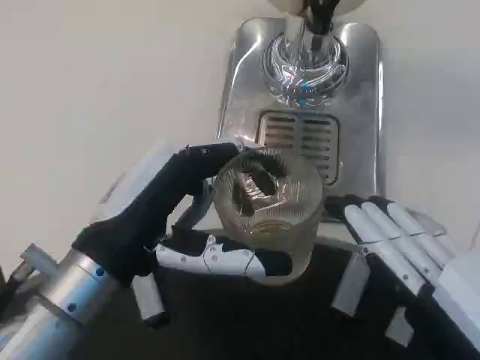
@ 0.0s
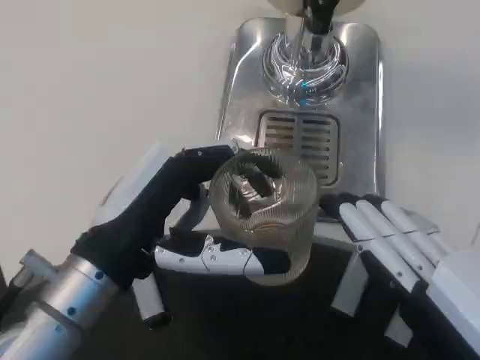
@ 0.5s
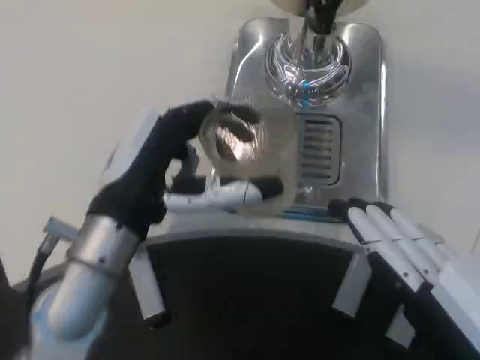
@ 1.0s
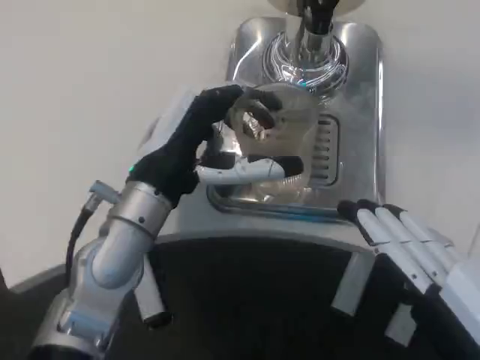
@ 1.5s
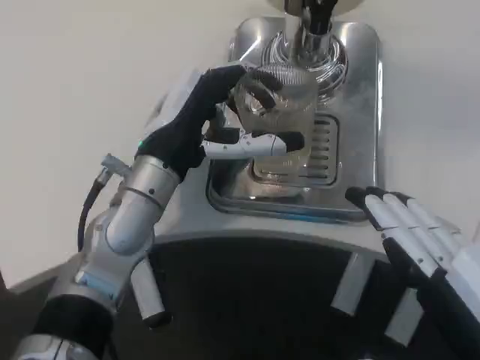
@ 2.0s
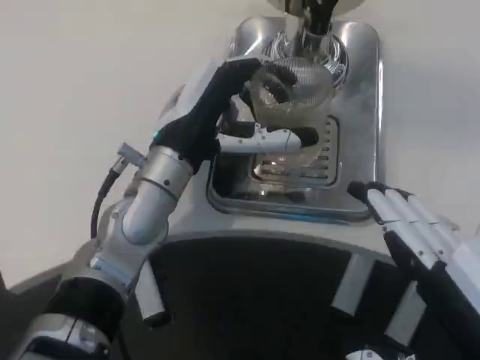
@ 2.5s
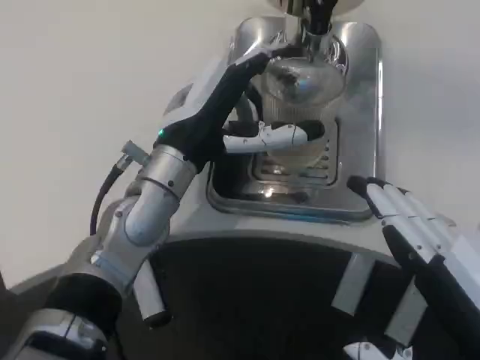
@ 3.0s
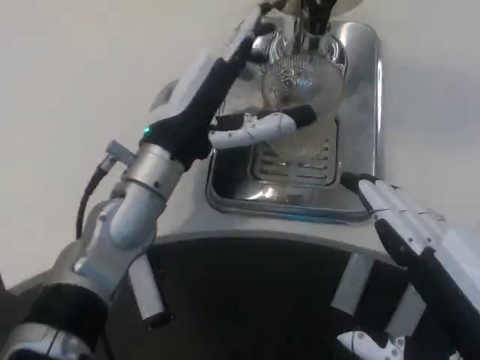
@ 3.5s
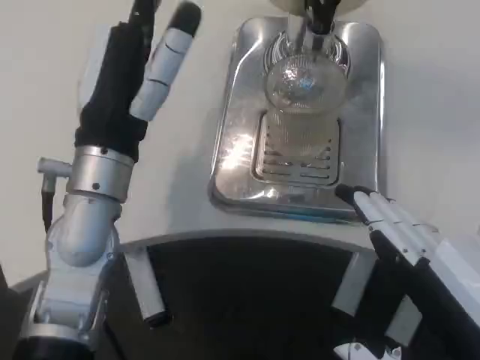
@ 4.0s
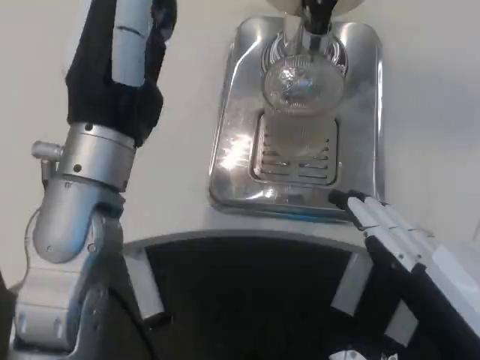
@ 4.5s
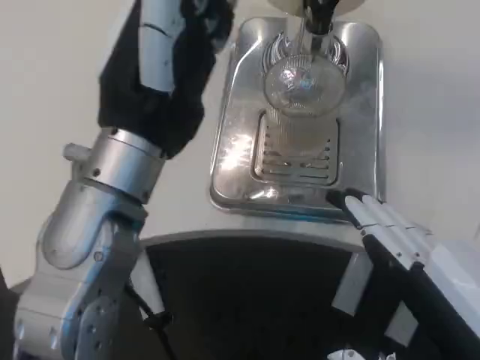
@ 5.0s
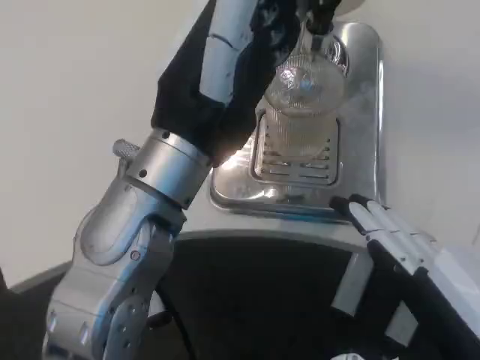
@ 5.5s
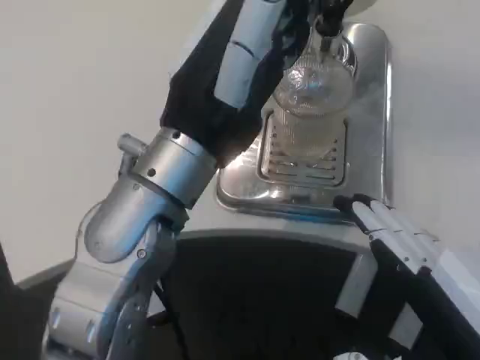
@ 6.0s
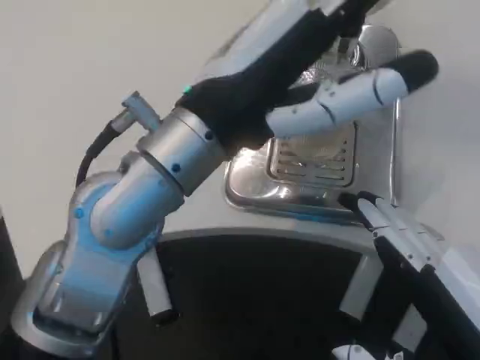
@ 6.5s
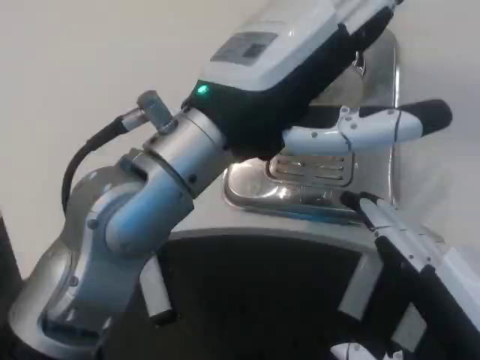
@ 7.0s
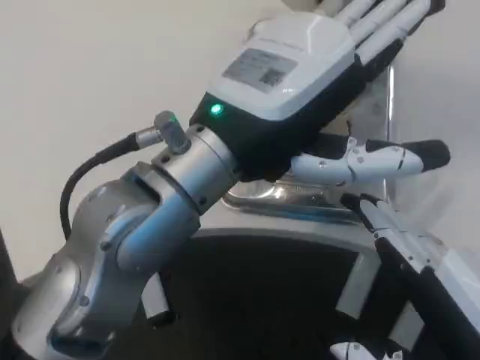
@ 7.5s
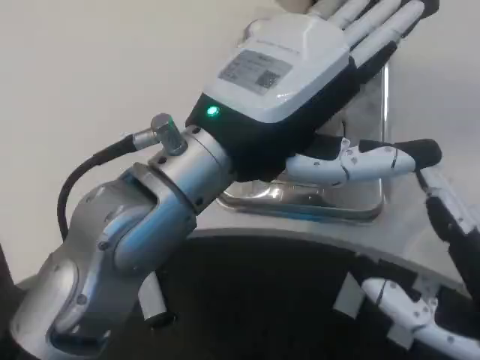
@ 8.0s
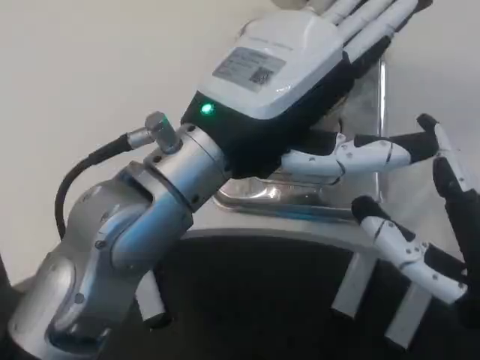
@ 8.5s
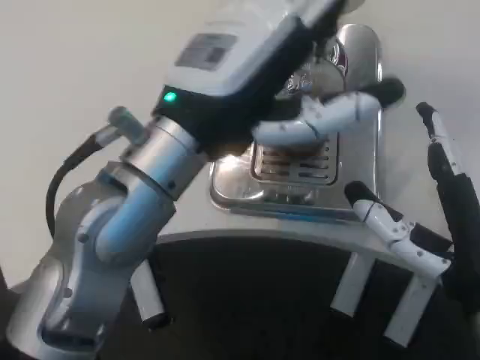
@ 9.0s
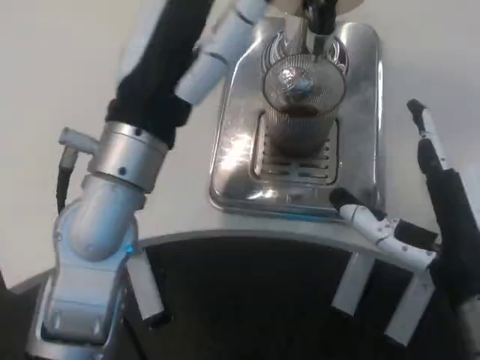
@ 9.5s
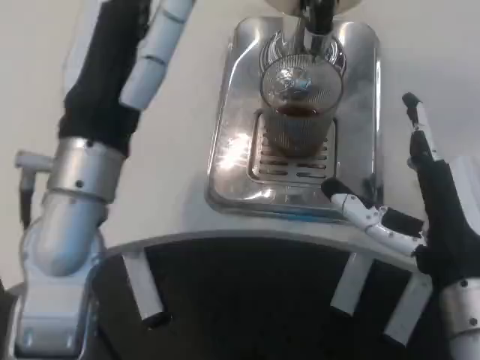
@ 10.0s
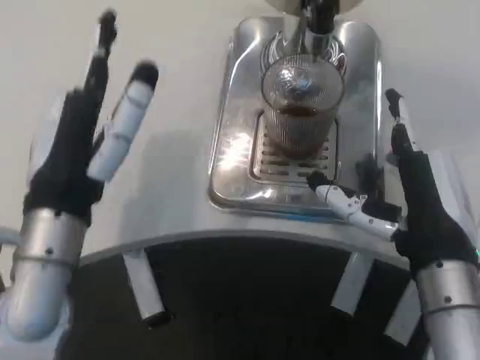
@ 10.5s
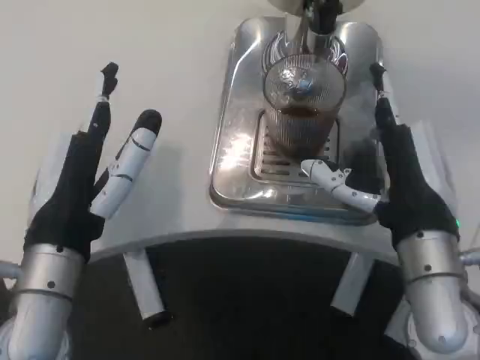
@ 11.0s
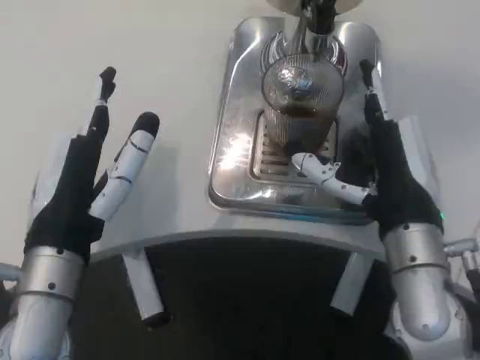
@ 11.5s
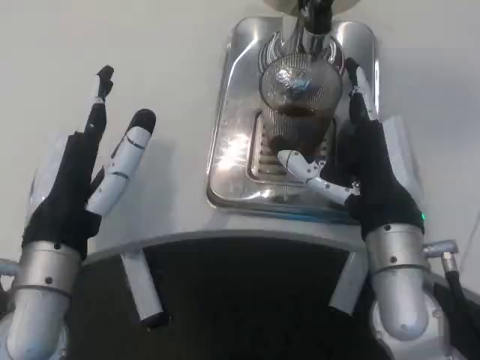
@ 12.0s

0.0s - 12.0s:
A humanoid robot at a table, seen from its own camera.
Task of the whole recording: Grasp the cup under the faucet to collect the drink, then remove the cup.
0.0s - 2.0s: The left hand heads forward, covering roughly 10 cm.
2.0s - 4.0s: The left hand shifts by approximately 5 cm.
4.0s - 6.0s: The left hand goes about 10 cm to the right and upward.
8.0s - 10.0s: The right hand heads forward, covering approximately 10 cm, while the left hand shifts approximately 5 cm to the left.
10.0s - 12.0s: The right hand moves forward, some 5 cm. Meanwhile the left hand travels downward by roughly 5 cm.

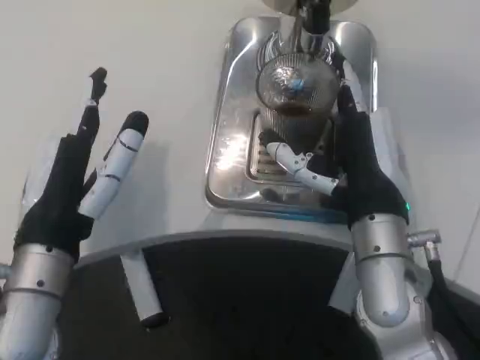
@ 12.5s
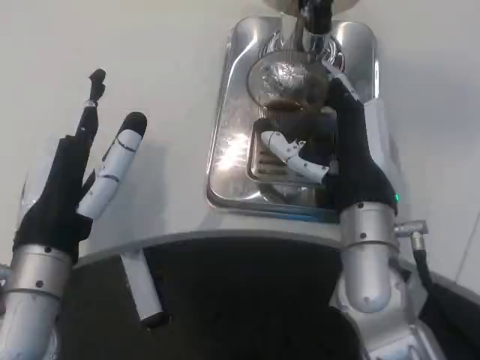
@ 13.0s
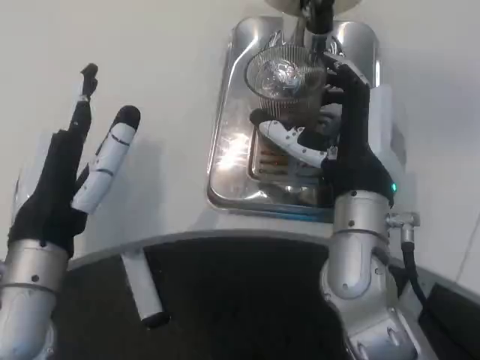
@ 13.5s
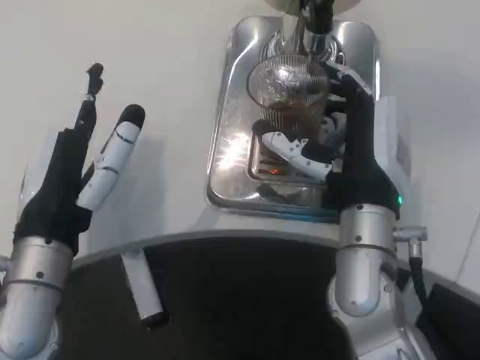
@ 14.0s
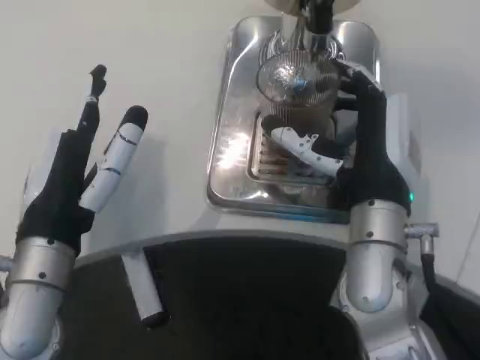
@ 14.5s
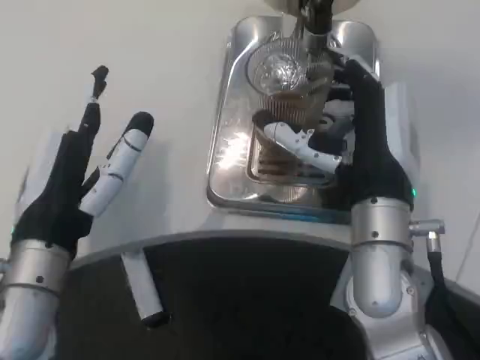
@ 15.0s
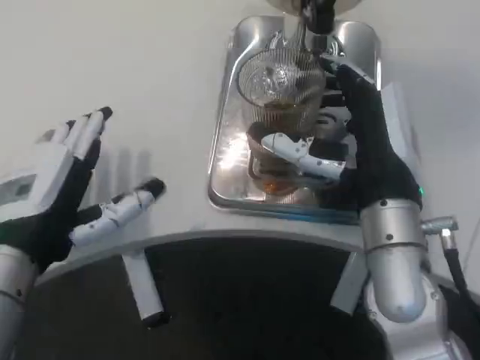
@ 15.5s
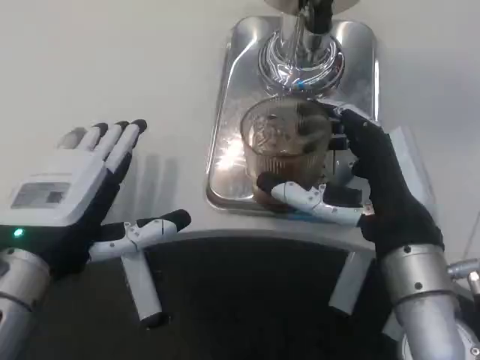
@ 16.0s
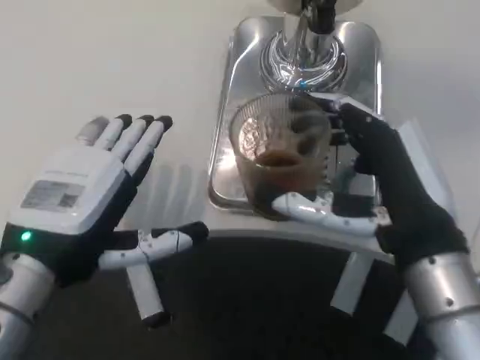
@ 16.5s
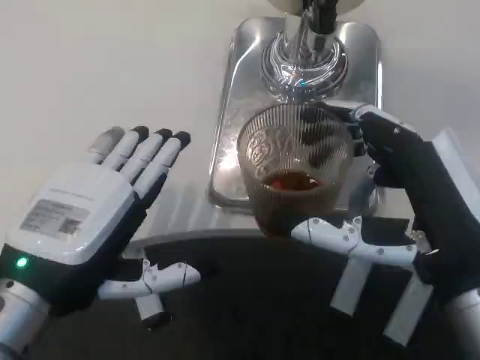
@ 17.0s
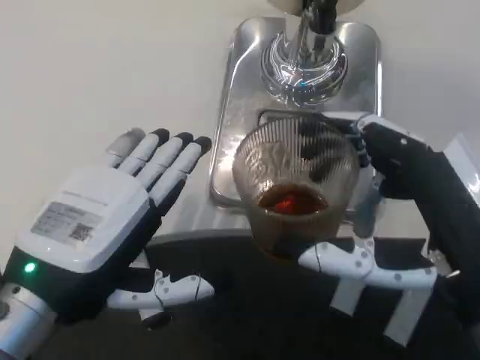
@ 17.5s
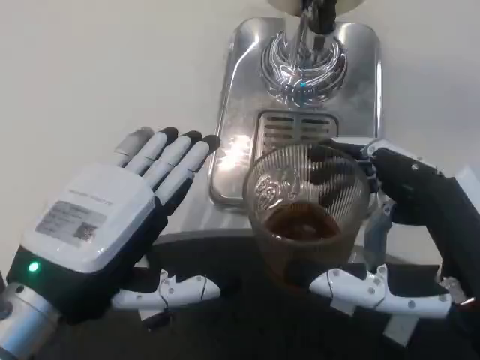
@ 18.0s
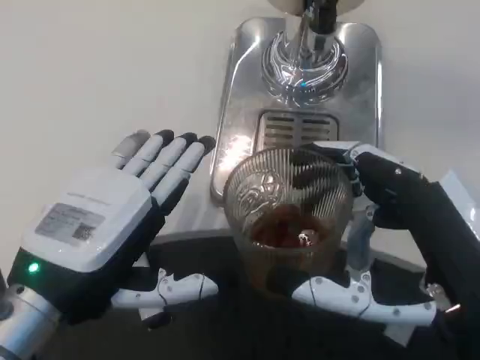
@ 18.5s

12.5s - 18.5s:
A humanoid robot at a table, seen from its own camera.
Task of the whole recording: Grasp the cup under the faucet to collect the drink, then remove the cup.
12.5s - 14.5s: The hands make only small movements.
14.5s - 16.5s: The right hand heads backward and to the right, covering some 10 cm.
16.5s - 18.5s: The right hand moves backward, about 5 cm.

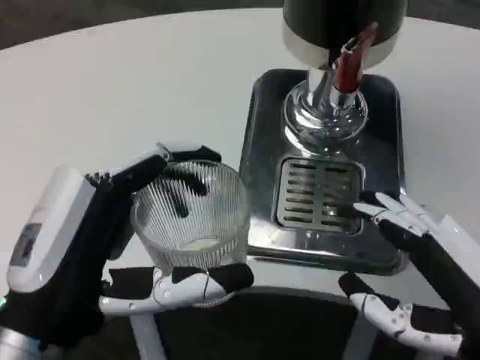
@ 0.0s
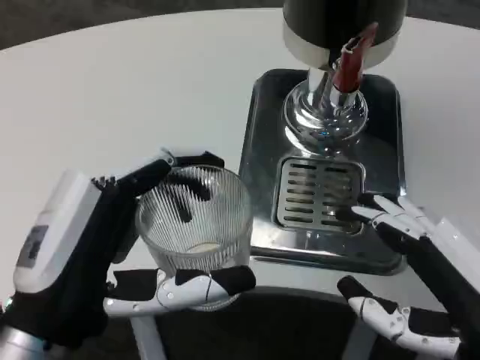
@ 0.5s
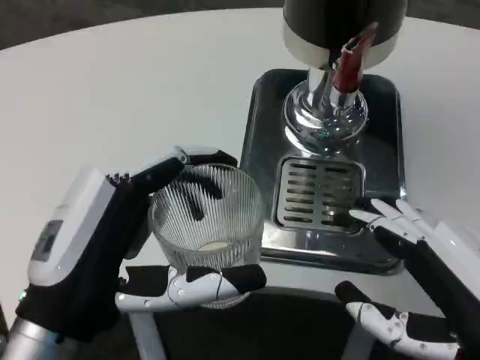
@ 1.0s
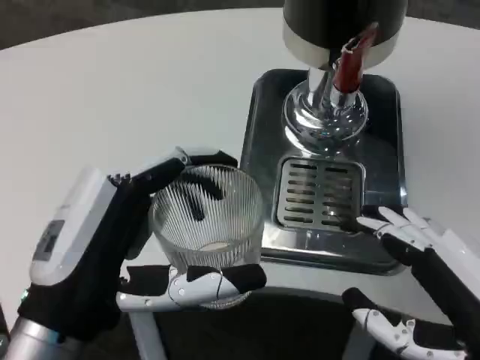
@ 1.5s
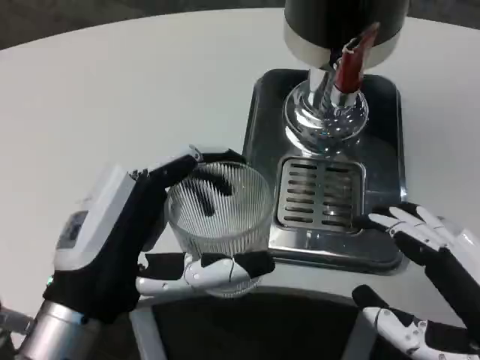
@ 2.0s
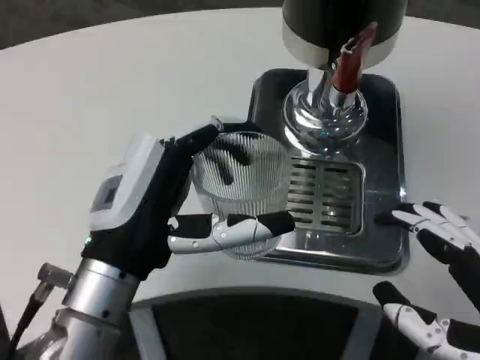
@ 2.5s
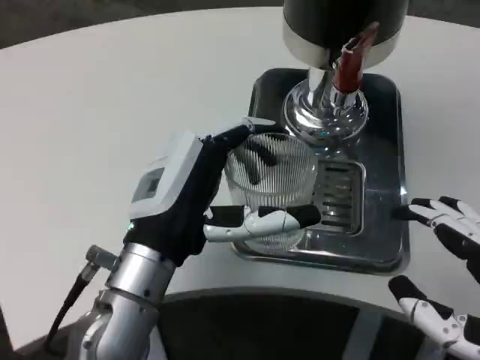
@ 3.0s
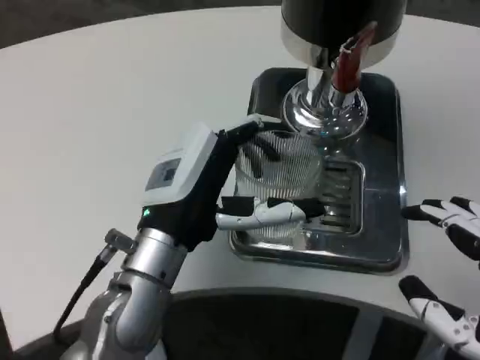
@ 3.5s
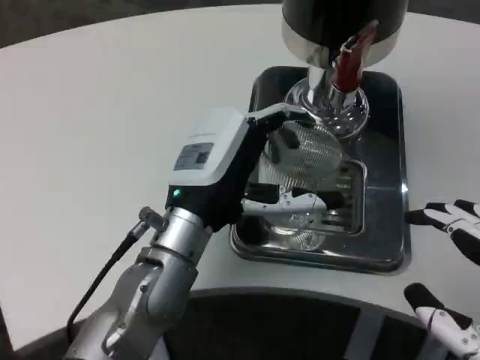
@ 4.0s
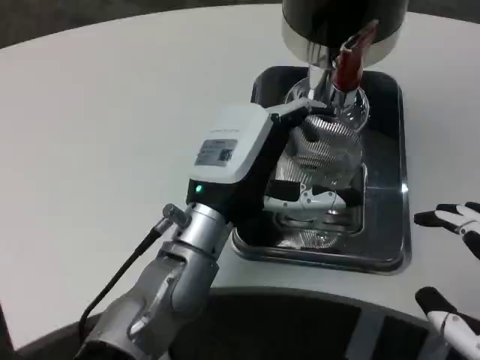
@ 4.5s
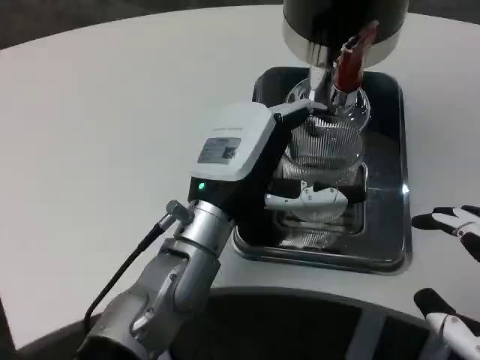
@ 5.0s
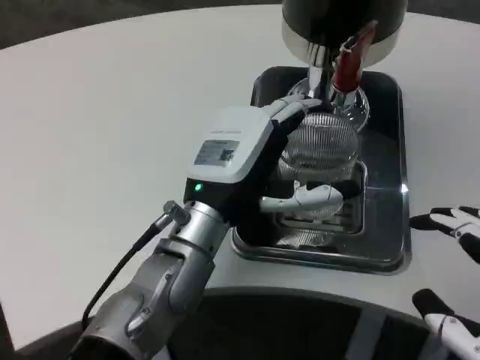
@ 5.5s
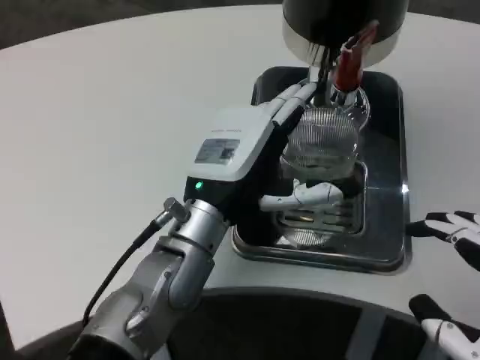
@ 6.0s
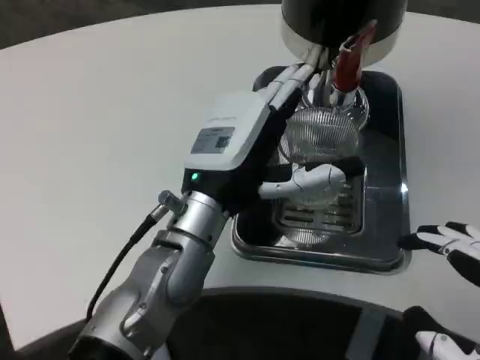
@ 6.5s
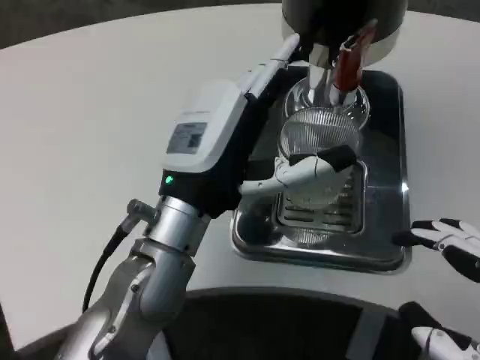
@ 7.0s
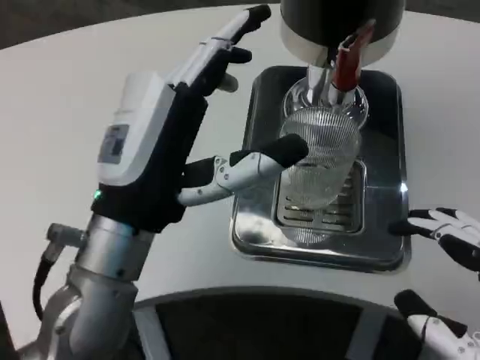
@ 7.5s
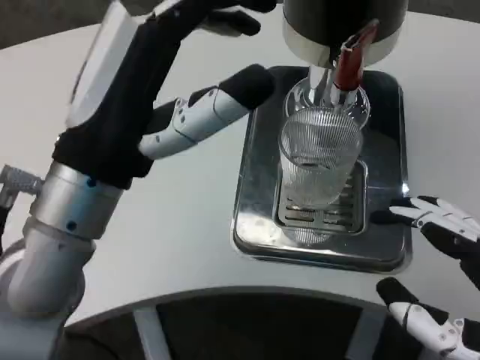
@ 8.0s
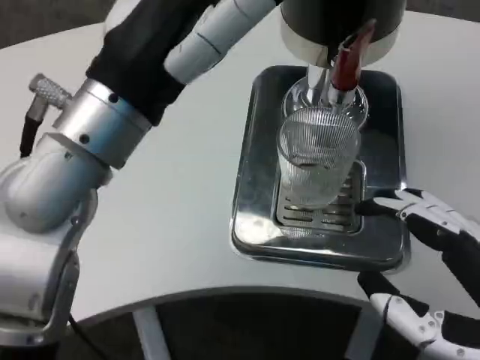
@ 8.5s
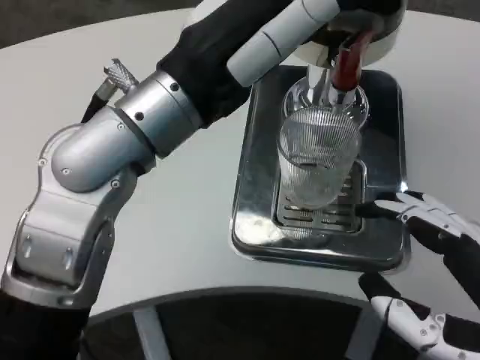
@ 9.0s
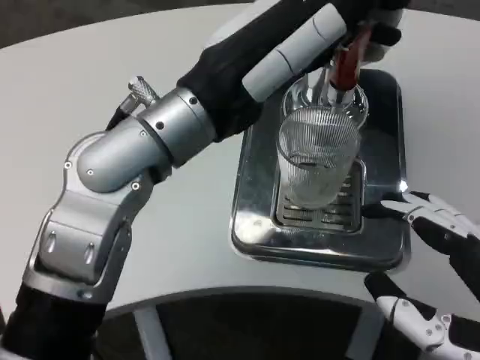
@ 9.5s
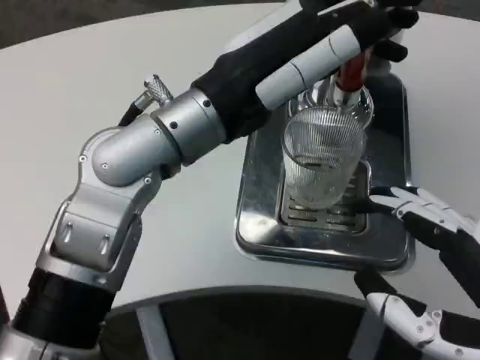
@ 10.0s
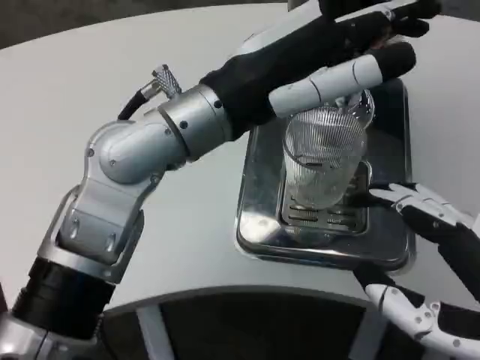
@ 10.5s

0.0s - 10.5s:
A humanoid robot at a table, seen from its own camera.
Task of the whole recording: Grasp the cup under the faucet to collect the drink, then remove the cup.
2.0s - 4.0s: The left hand is displaced forward and to the right by roughly 15 cm.
6.5s - 8.5s: The left hand goes some 15 cm upward, backward and to the left.
8.5s - 10.5s: The left hand is displaced forward by roughly 5 cm.
